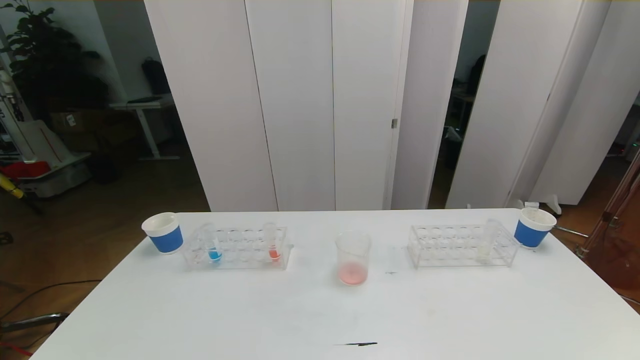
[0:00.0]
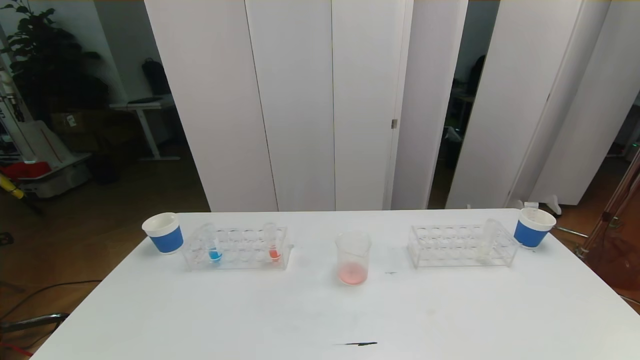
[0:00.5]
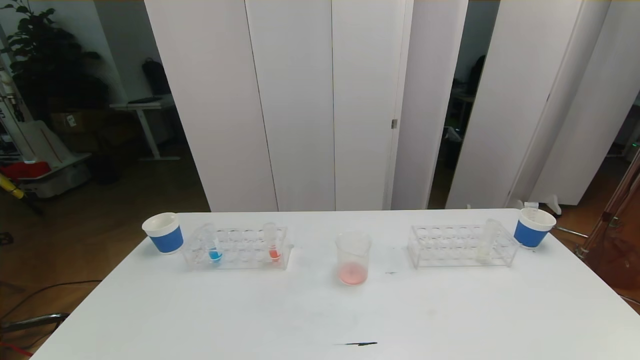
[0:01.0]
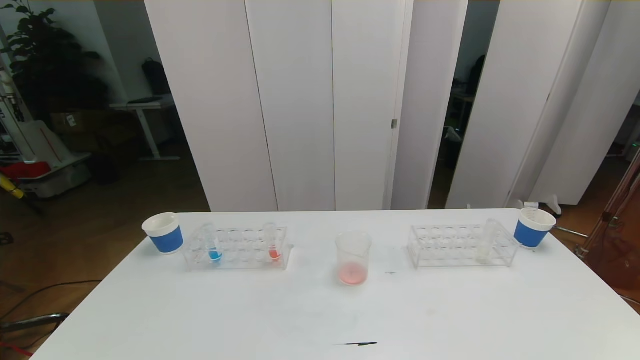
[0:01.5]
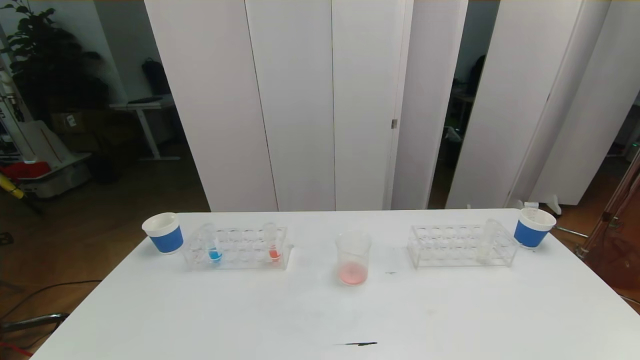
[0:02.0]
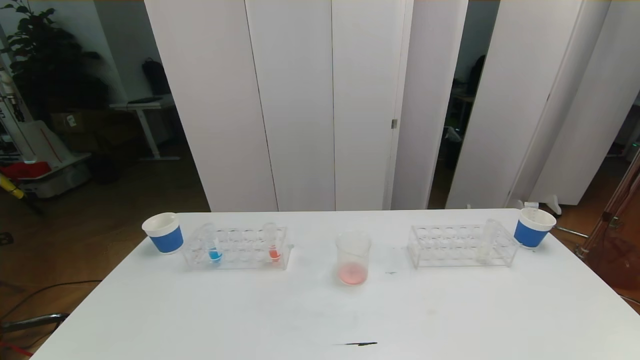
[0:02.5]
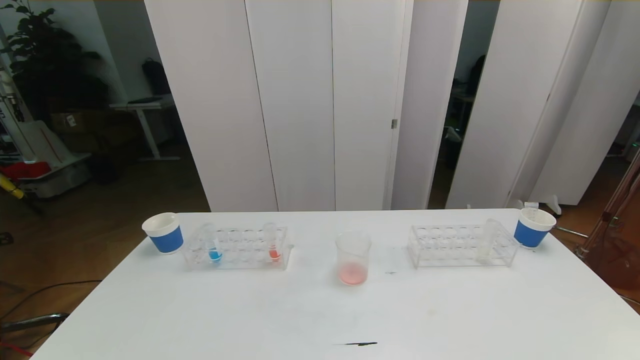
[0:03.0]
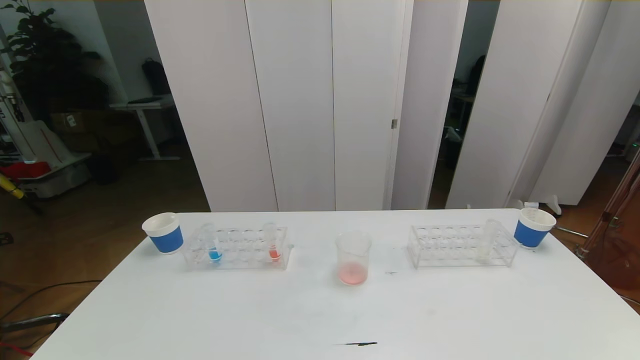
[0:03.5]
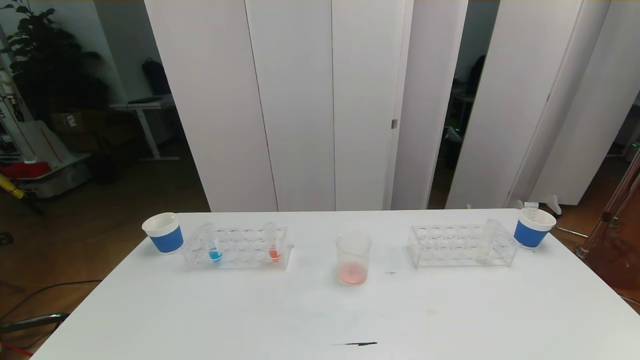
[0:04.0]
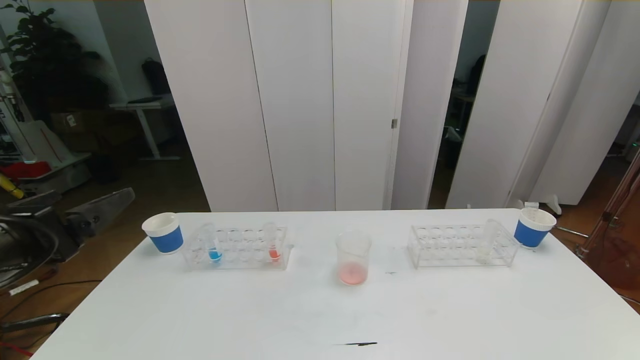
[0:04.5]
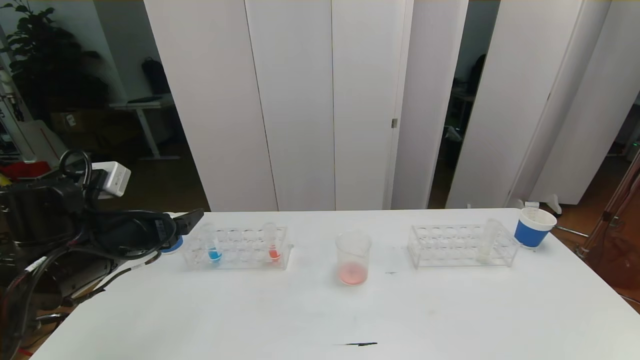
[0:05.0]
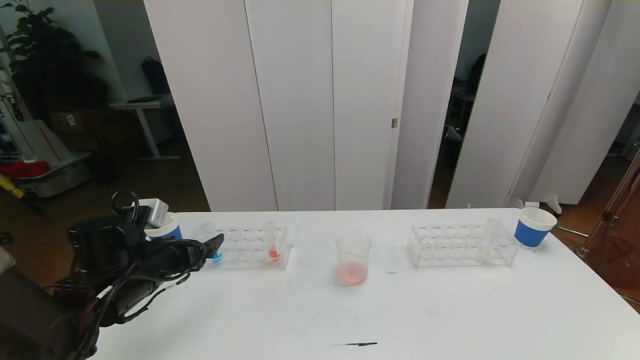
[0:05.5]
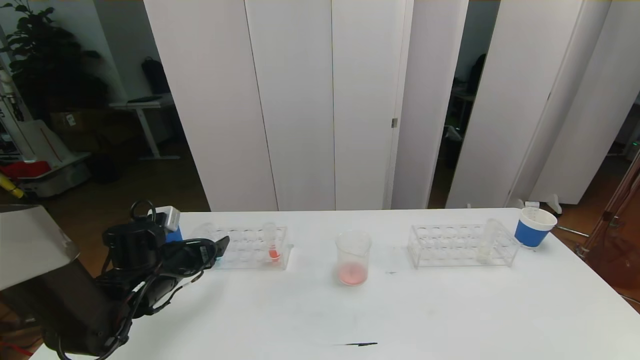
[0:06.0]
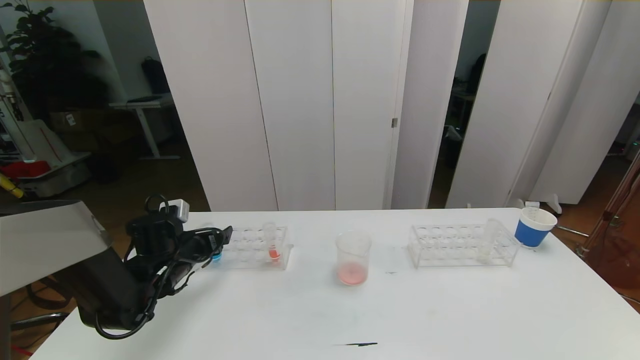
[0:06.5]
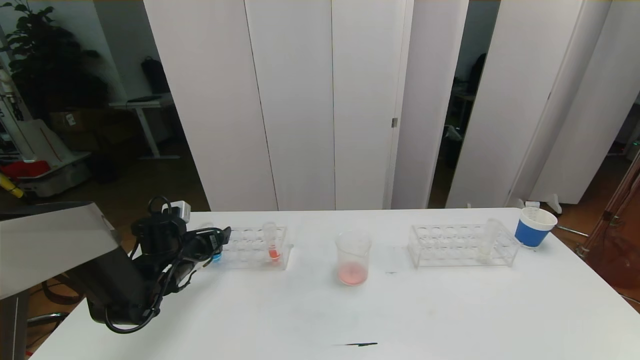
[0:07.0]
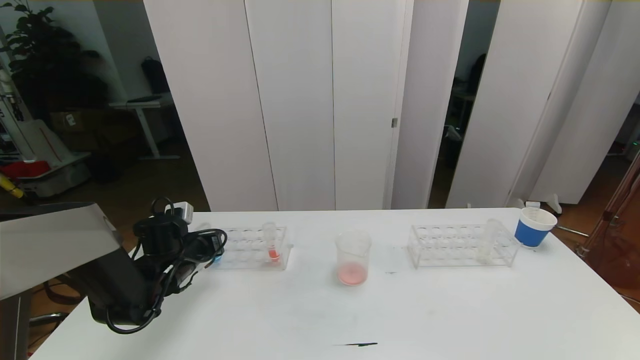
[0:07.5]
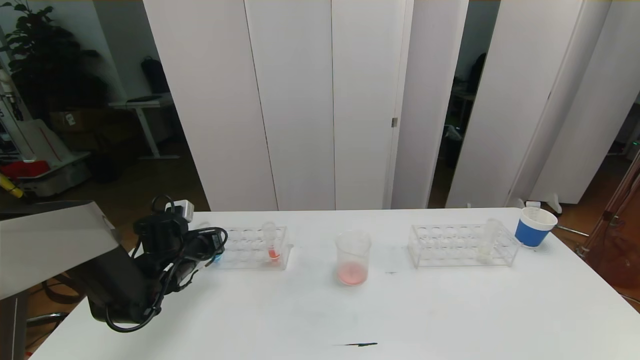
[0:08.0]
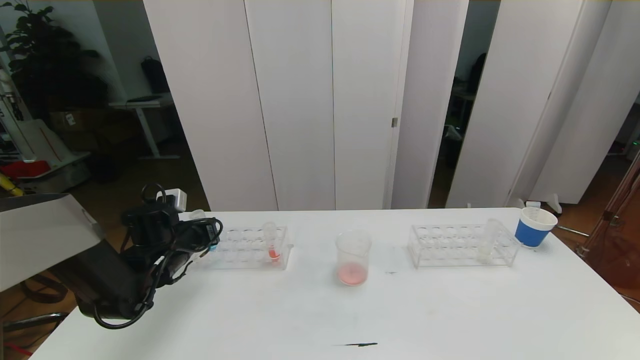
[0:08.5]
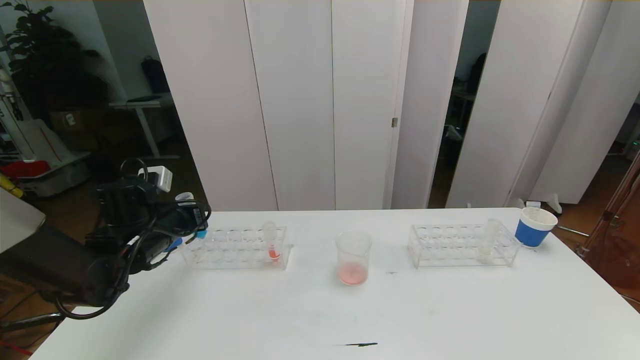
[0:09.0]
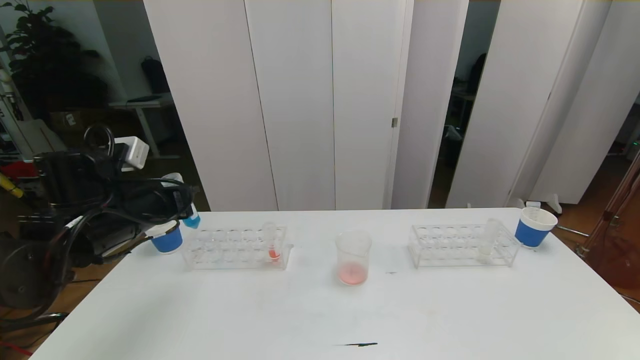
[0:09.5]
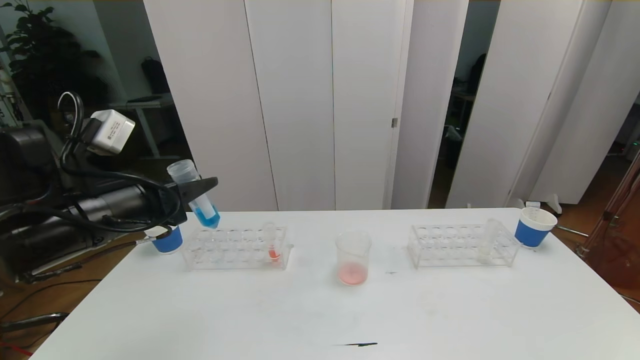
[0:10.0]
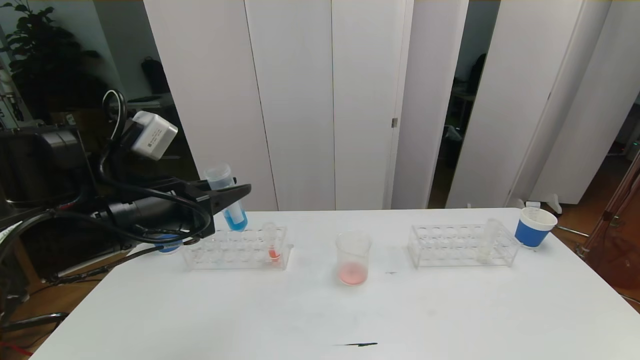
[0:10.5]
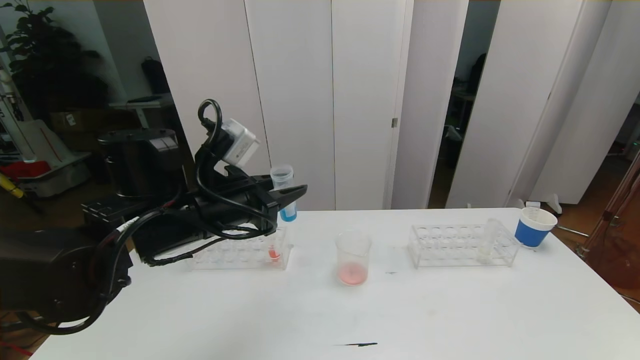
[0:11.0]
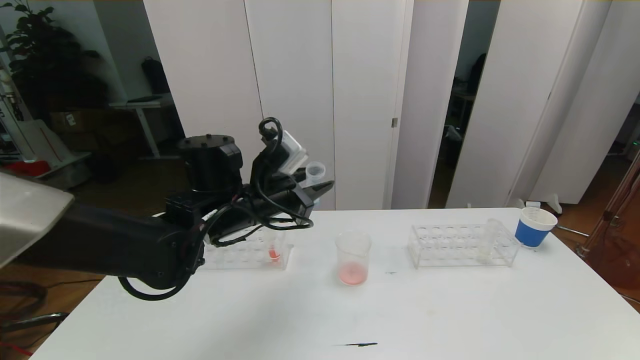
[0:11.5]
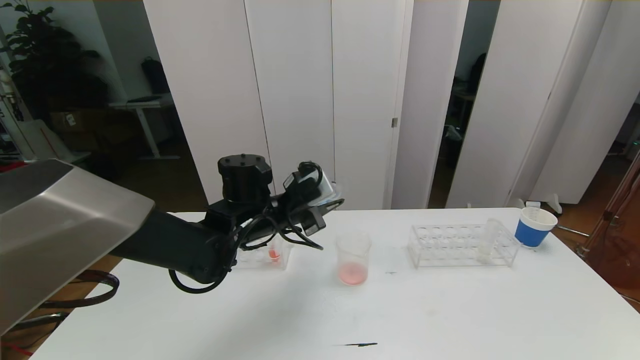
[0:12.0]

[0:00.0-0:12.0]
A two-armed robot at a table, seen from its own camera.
Task of the whole recording: pick up the test tube with red pigment the test tube with blue pigment and the test tube with white pigment by grippers and pour them into the beaker.
4.0 to 6.0 s: The left gripper shifts approximately 35 cm forward and downward.
6.0 to 8.0 s: The left gripper changes place by some 5 cm, and closes its fingers.
8.0 to 10.0 s: The left gripper is displaced upward and backward by roughly 25 cm.
10.0 to 12.0 s: The left gripper shifts about 20 cm to the right, forward and downward.

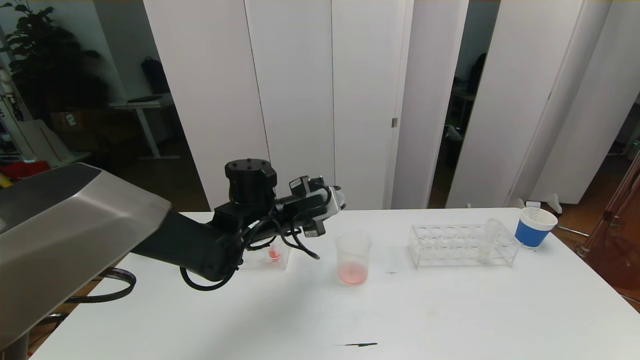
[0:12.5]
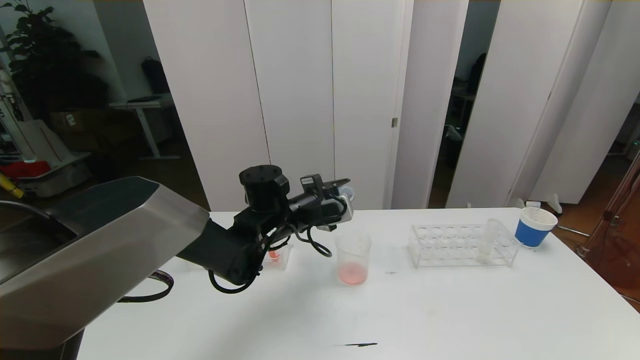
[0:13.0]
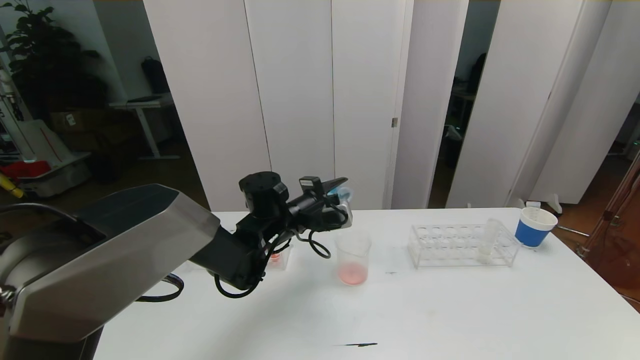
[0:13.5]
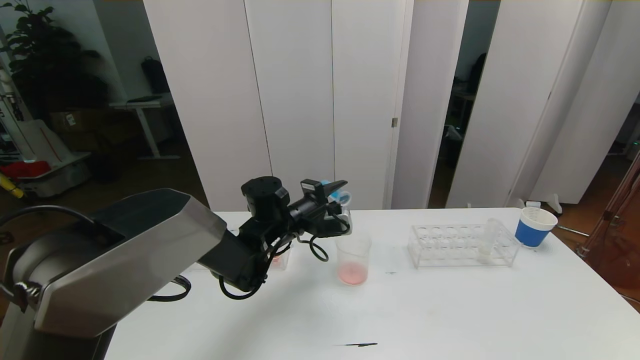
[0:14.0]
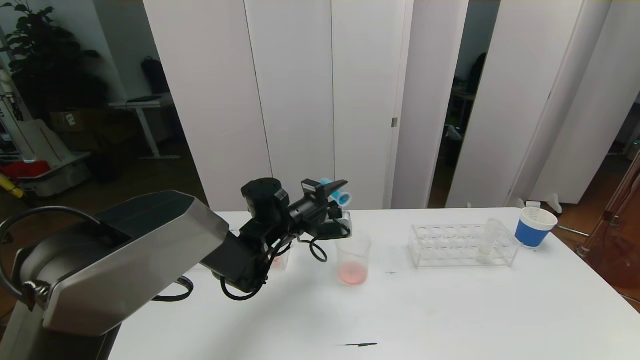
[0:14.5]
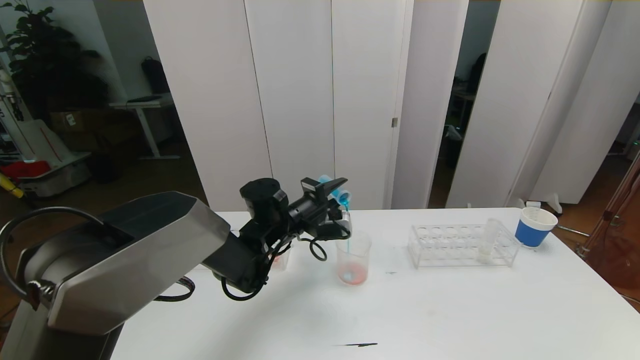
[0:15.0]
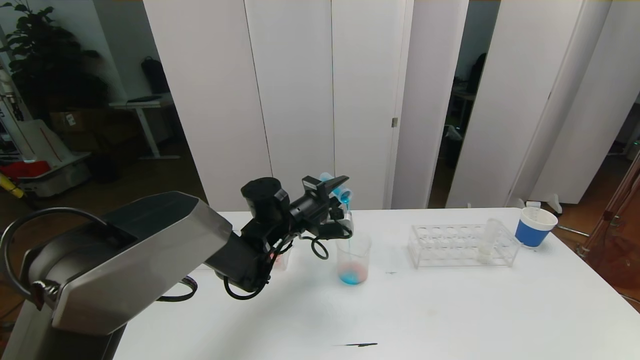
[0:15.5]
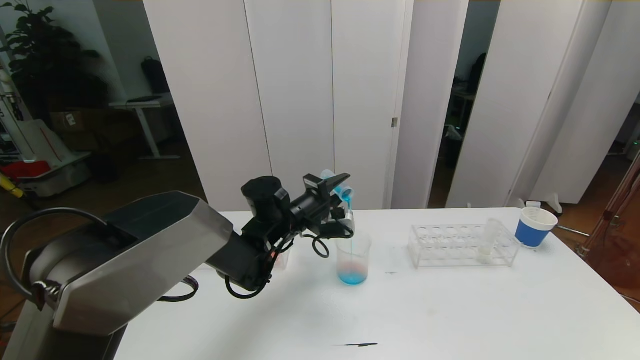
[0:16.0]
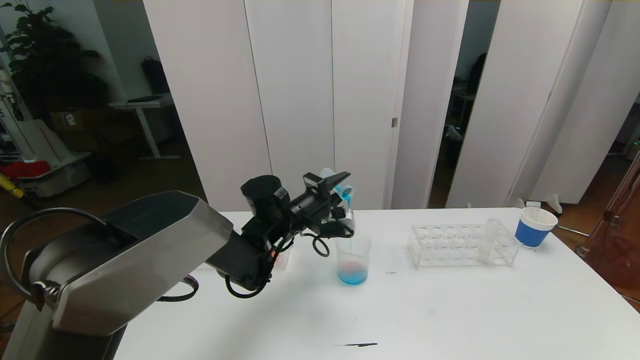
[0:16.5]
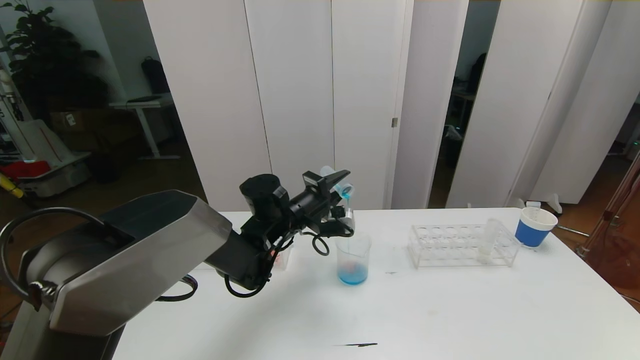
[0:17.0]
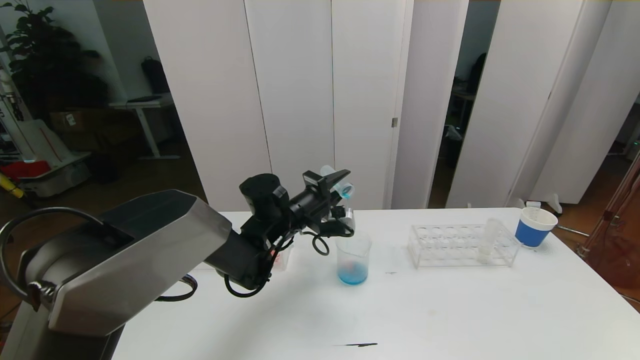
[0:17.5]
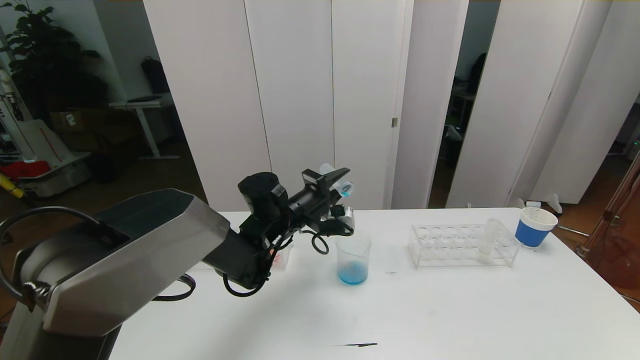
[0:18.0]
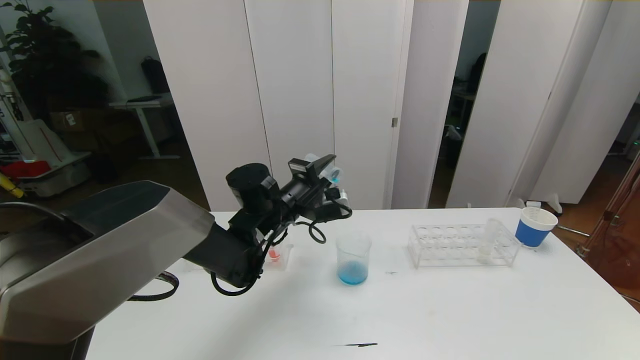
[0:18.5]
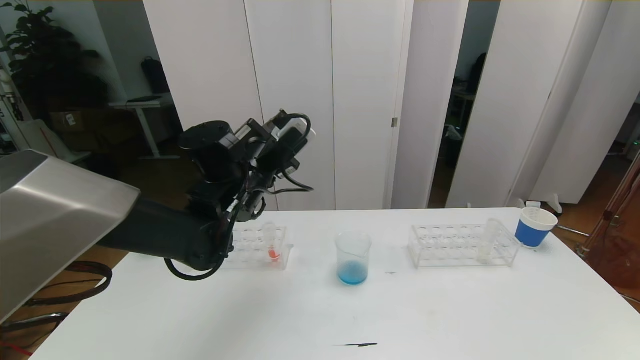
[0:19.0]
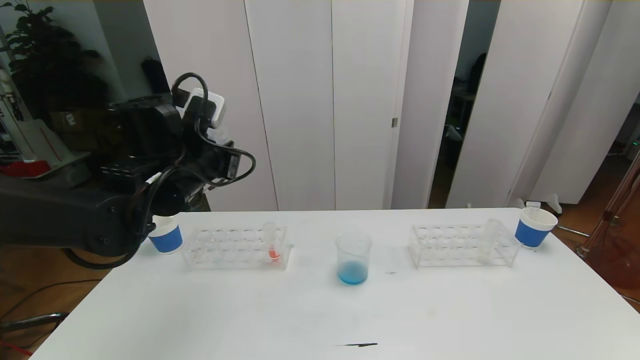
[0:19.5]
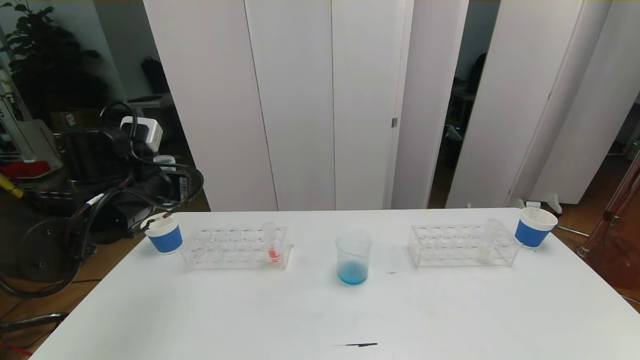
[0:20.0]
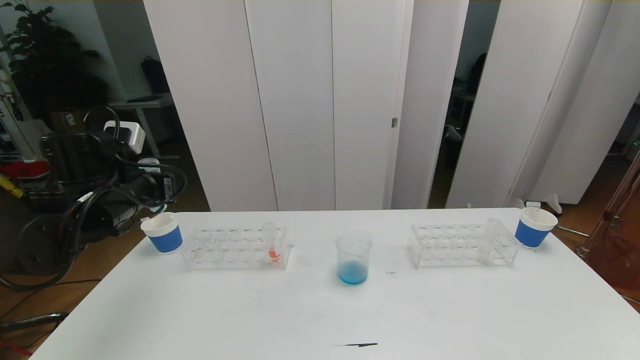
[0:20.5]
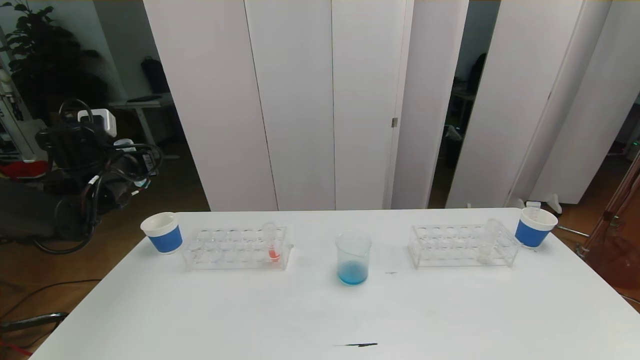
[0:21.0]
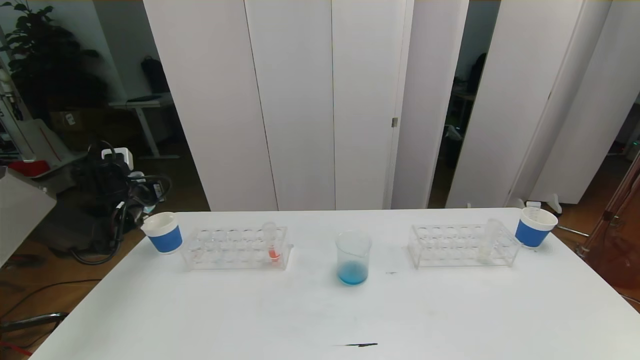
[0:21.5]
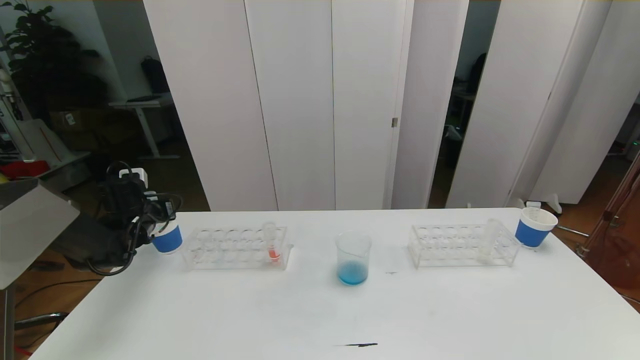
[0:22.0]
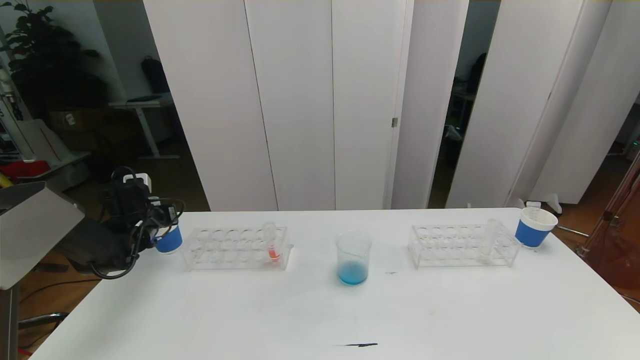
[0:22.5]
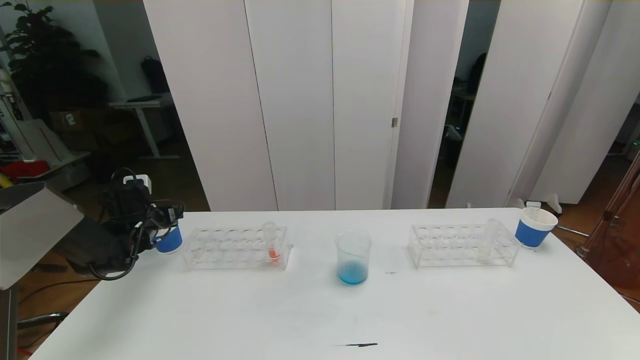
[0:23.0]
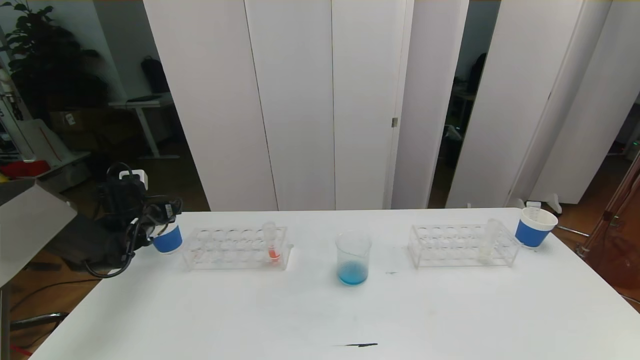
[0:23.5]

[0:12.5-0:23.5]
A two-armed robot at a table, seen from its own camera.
Task of the whole recording: pick up the test tube with red pigment the test tube with blue pigment and the test tube with white pigment by grippers and pour them into the beaker.
14.5 to 16.0 s: The grippers make only small movements.
16.0 to 18.0 s: The two grippers keep their place.
18.0 to 20.0 s: The left gripper goes approximately 20 cm to the left, upward and backward.
20.0 to 21.5 s: The left gripper is displaced to the left, forward and downward by some 20 cm.
21.5 to 23.5 s: The left gripper opens up.
